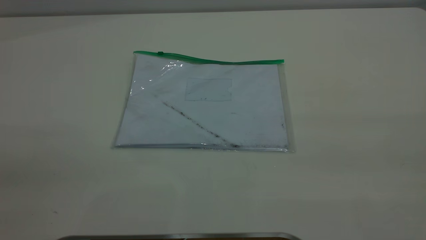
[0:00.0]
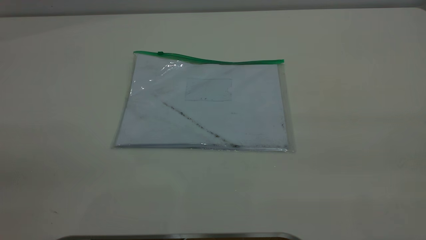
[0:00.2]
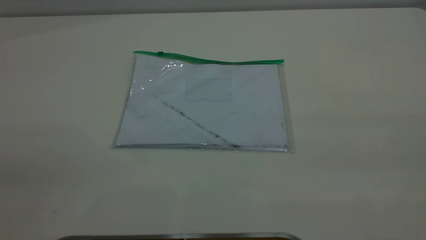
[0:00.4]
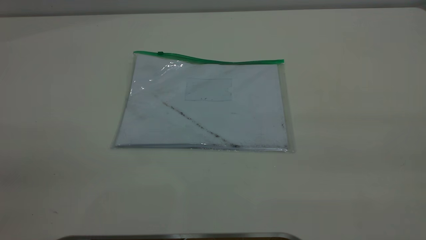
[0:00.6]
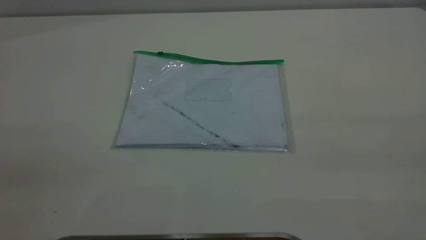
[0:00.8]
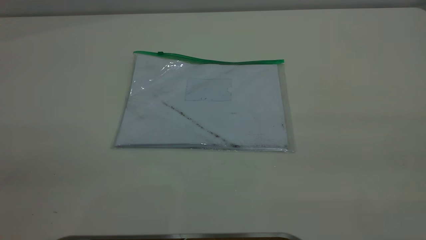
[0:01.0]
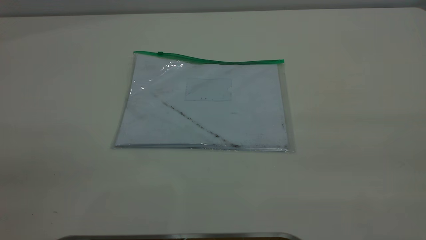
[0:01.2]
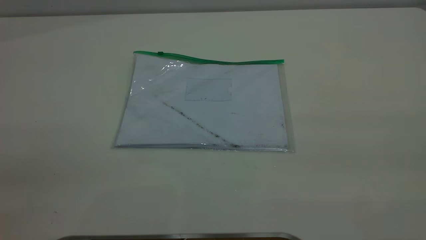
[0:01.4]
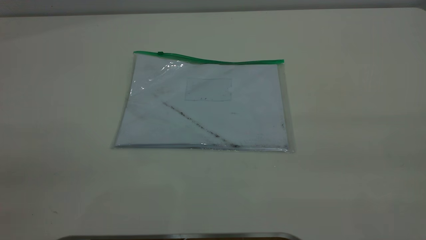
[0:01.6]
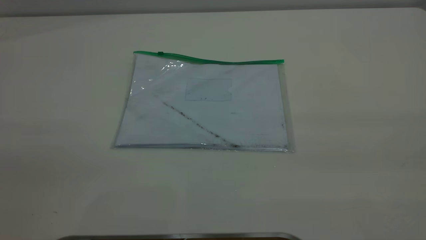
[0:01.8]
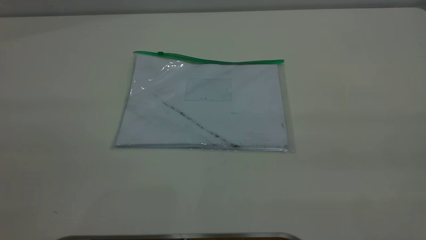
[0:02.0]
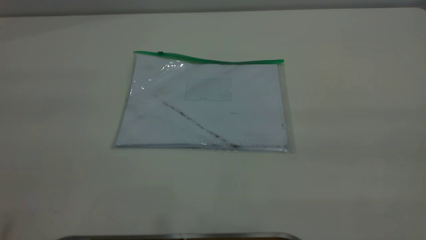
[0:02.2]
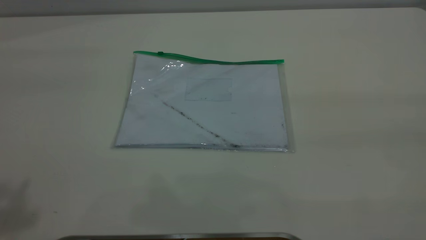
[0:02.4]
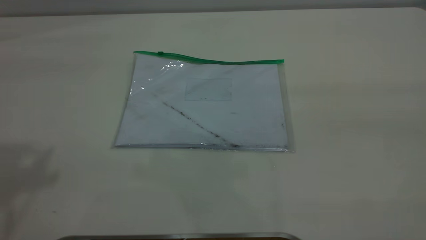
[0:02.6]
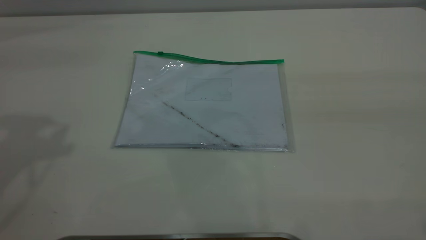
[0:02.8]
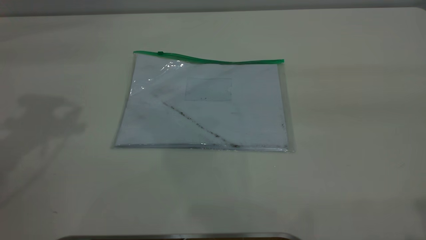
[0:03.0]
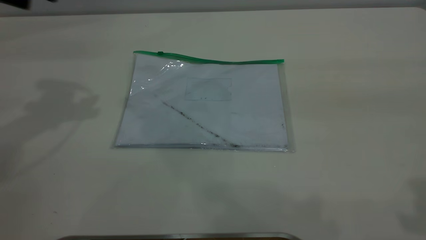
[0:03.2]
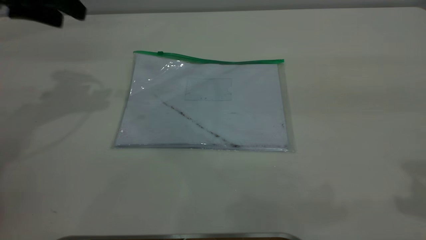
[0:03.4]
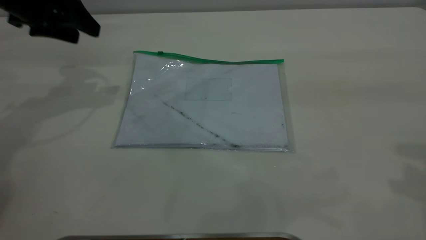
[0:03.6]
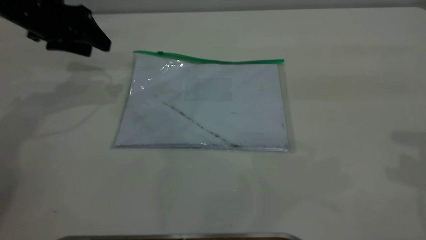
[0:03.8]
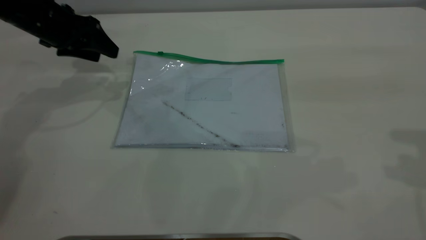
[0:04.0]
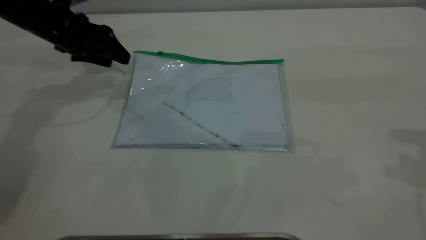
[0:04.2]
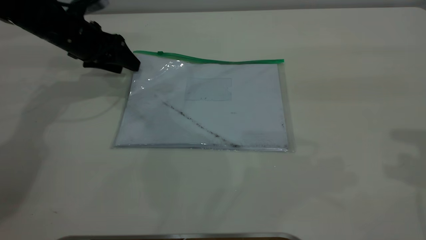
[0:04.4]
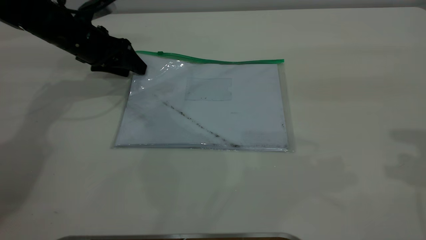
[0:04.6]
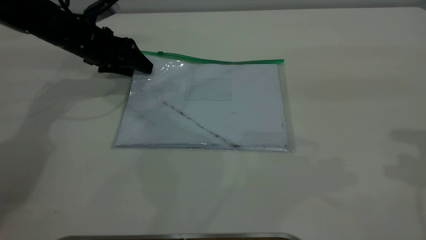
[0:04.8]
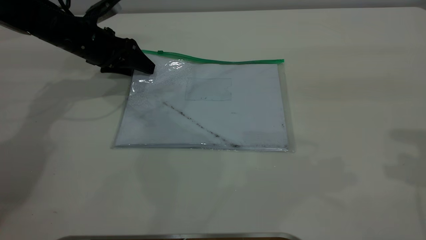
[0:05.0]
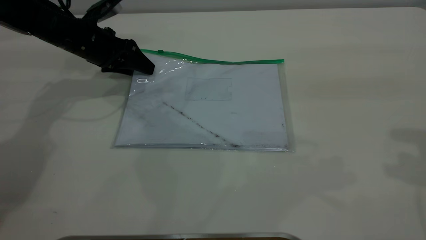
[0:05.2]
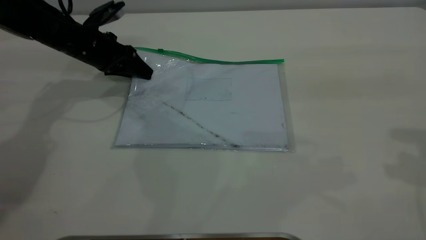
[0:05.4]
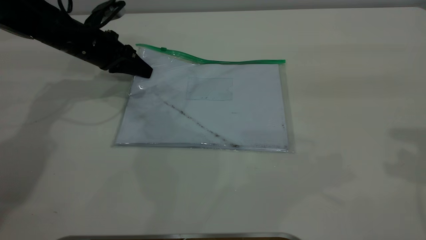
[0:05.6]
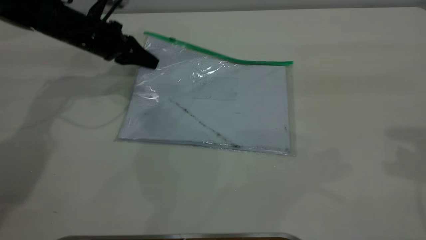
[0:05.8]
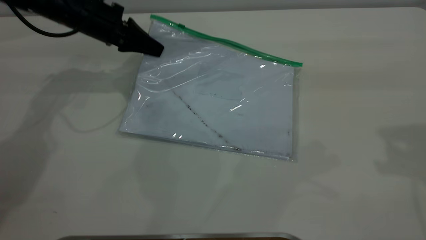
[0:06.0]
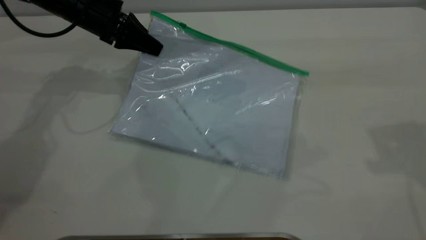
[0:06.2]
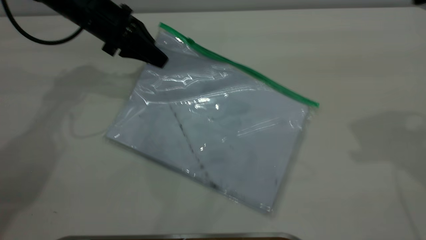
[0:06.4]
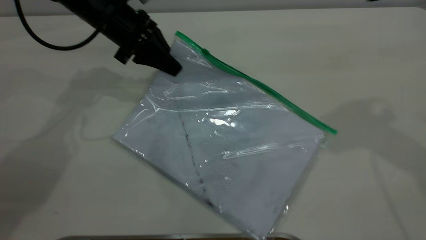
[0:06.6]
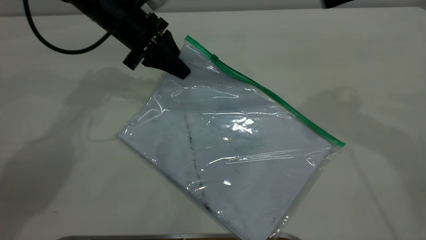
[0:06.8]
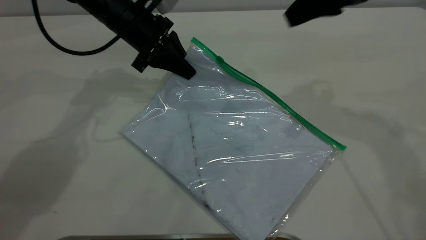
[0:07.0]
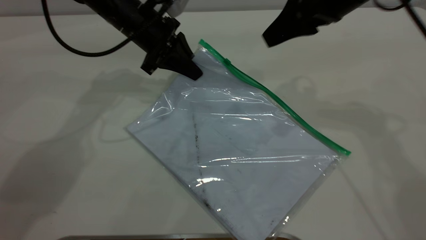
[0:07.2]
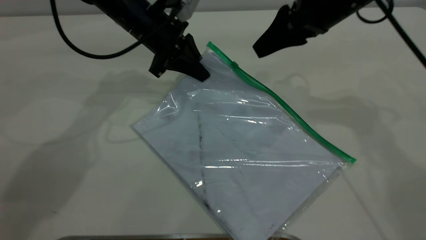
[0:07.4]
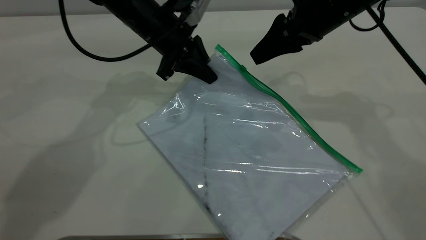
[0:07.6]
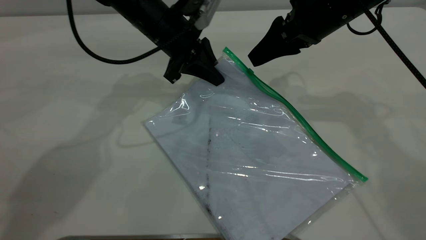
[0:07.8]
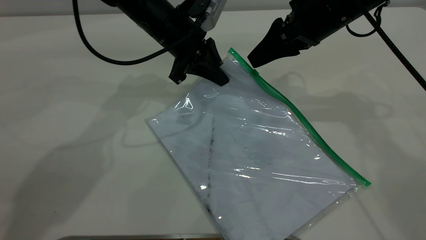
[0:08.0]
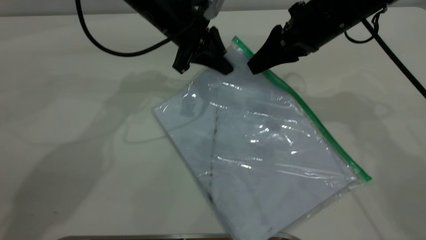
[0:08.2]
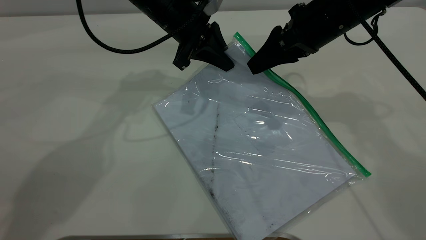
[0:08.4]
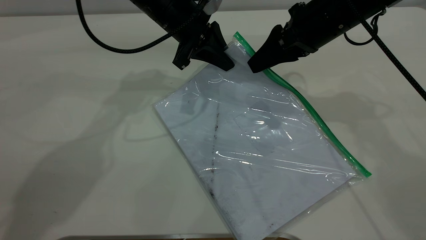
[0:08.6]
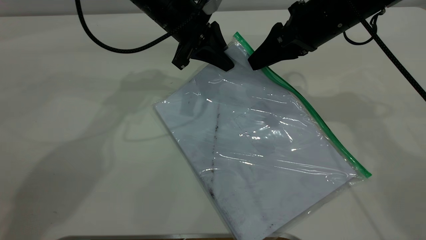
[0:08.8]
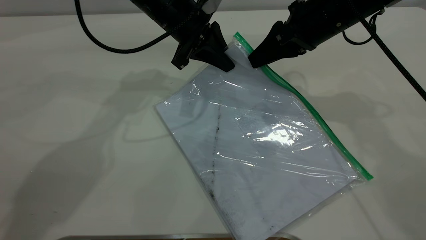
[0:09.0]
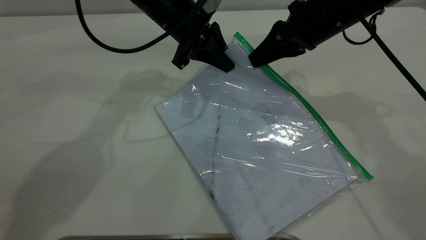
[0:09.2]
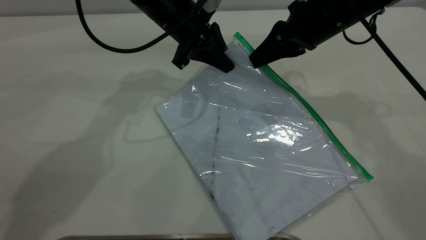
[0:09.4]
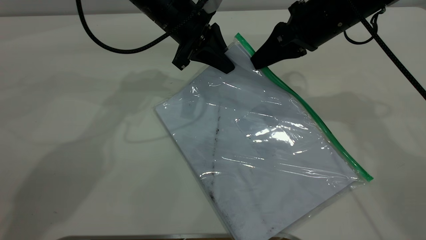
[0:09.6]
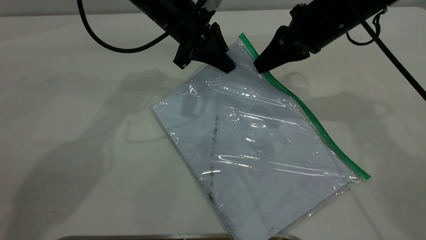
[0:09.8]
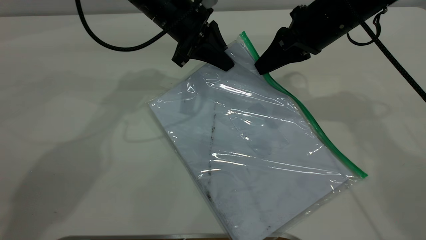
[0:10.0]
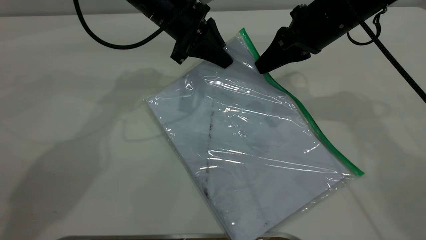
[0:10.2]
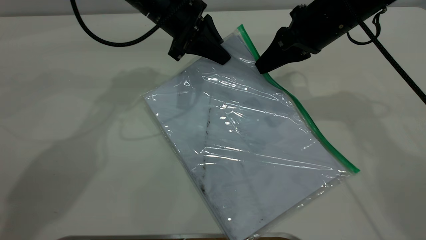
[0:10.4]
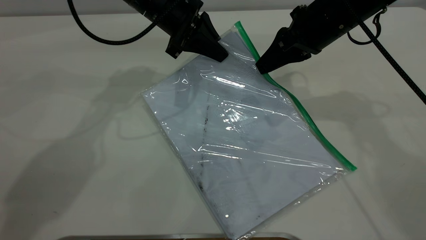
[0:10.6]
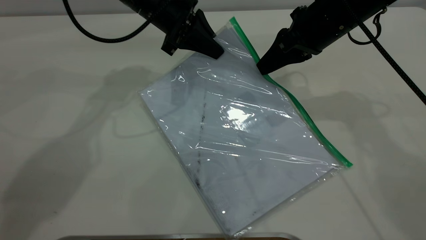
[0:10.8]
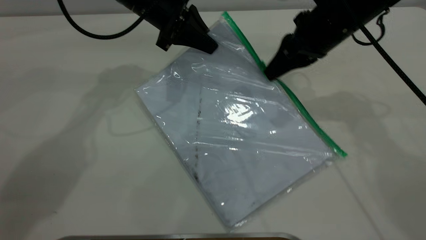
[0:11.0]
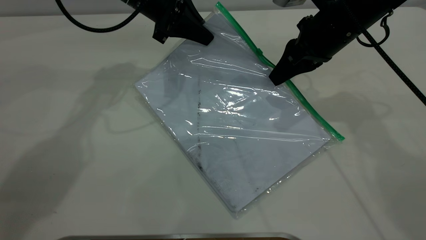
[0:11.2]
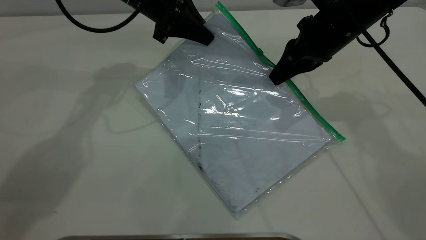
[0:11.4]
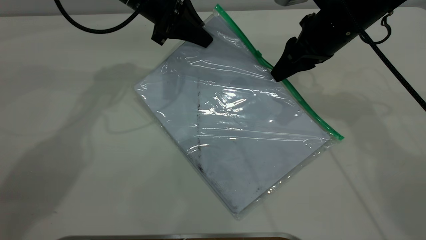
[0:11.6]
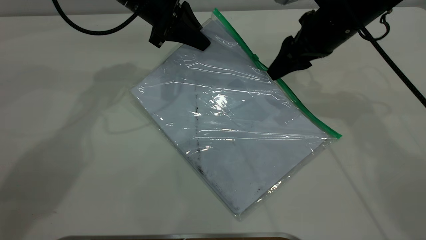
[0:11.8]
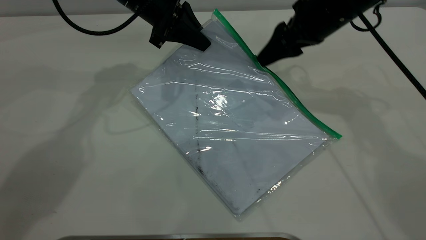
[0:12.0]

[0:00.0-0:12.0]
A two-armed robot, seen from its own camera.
Step, 0:00.0 to 0:03.6: Pick up the transparent plastic bag with the left gripper.
0:00.0 to 0:01.6: Neither gripper changes place.
0:03.0 to 0:04.4: The left gripper is displaced downward and forward by approximately 25 cm.
0:04.4 to 0:06.0: The left gripper closes its fingers.
0:06.0 to 0:07.6: The right gripper moves to the left, forward and downward, about 25 cm; the left gripper travels to the right by about 10 cm.
0:07.6 to 0:09.0: The right gripper closes its fingers.
0:09.0 to 0:10.4: The grippers make only small movements.
0:10.4 to 0:12.0: The right gripper opens up.

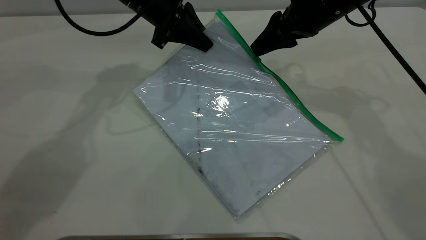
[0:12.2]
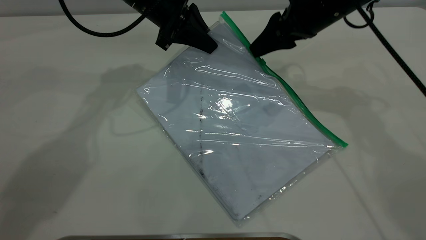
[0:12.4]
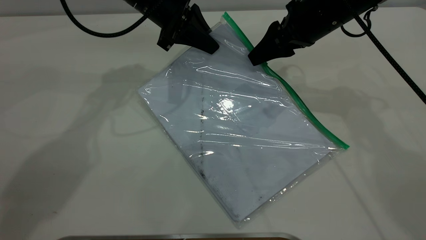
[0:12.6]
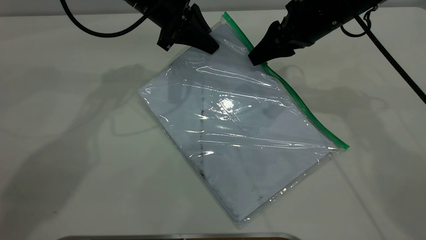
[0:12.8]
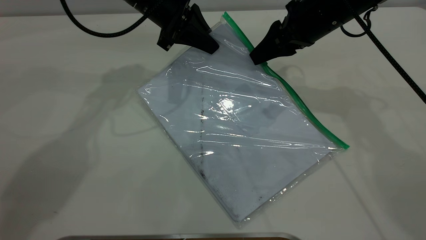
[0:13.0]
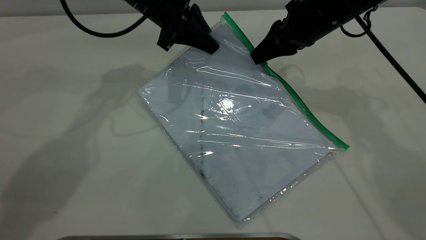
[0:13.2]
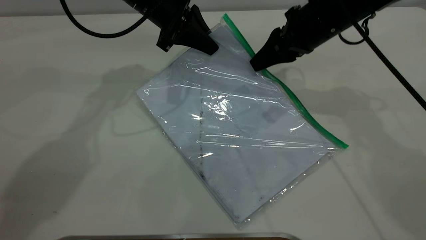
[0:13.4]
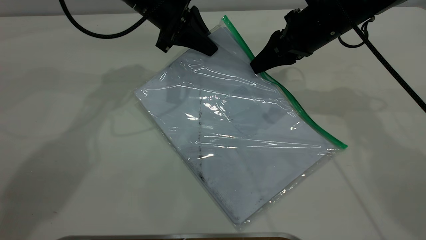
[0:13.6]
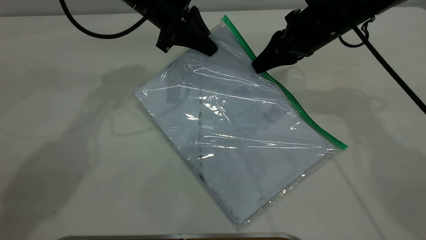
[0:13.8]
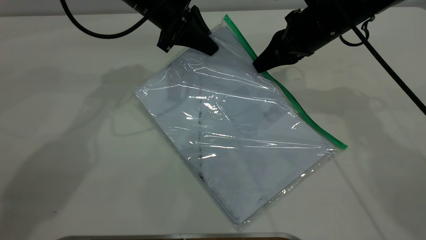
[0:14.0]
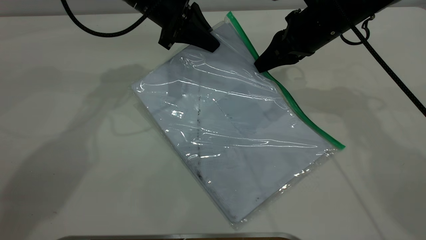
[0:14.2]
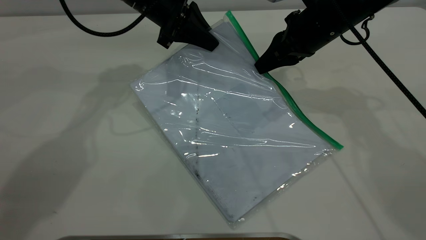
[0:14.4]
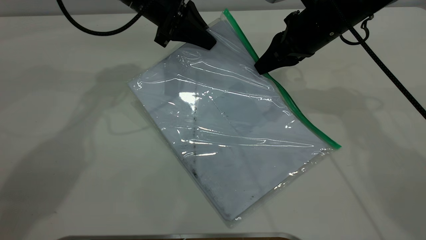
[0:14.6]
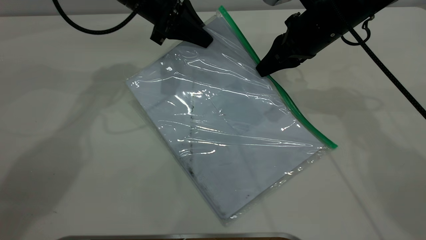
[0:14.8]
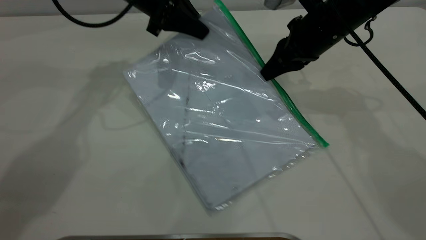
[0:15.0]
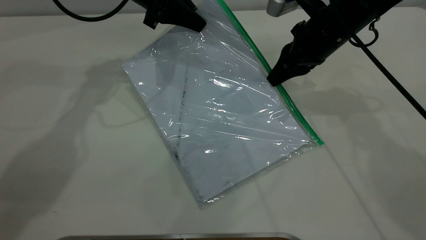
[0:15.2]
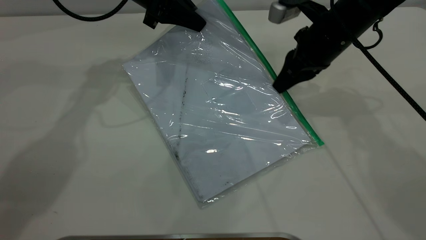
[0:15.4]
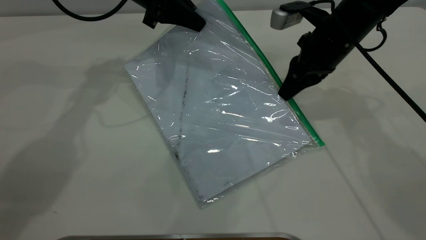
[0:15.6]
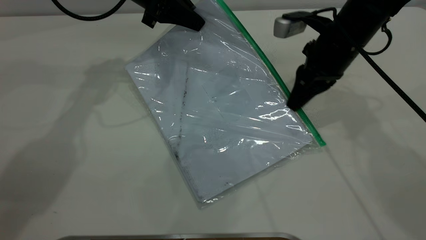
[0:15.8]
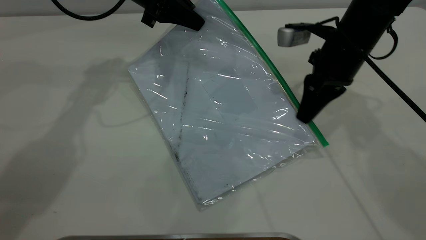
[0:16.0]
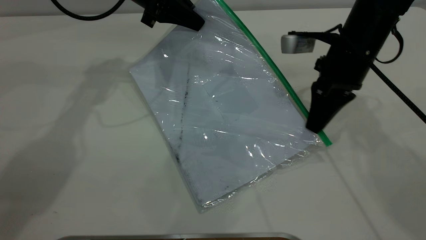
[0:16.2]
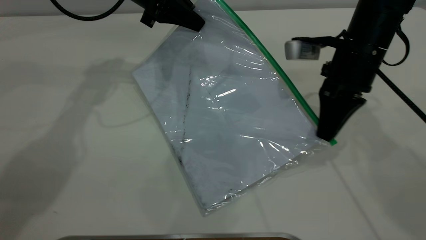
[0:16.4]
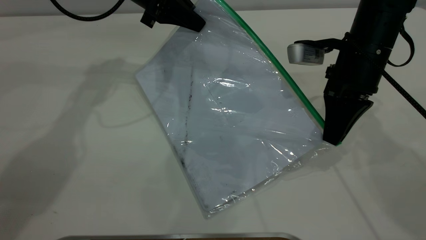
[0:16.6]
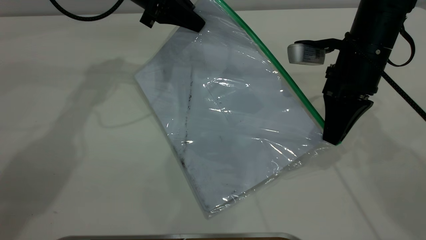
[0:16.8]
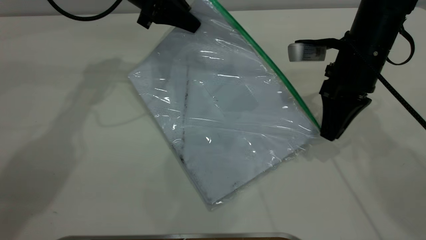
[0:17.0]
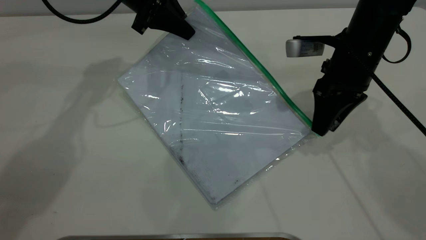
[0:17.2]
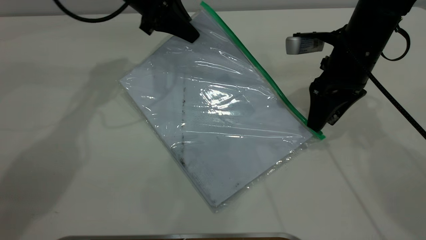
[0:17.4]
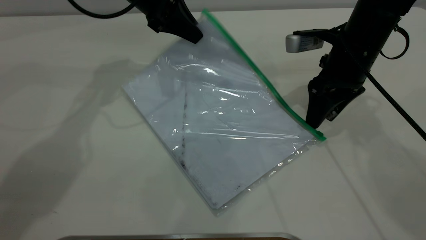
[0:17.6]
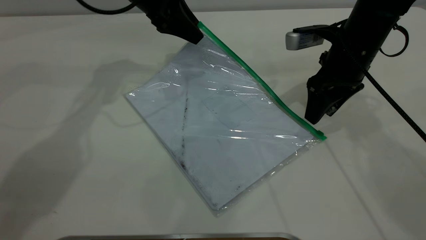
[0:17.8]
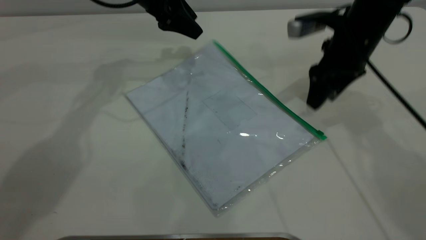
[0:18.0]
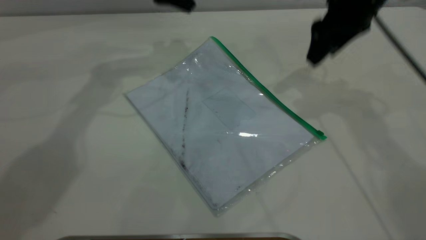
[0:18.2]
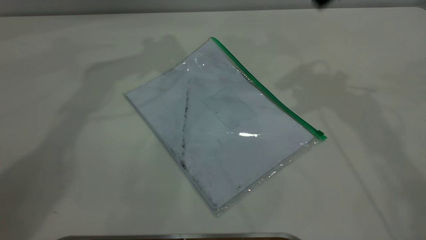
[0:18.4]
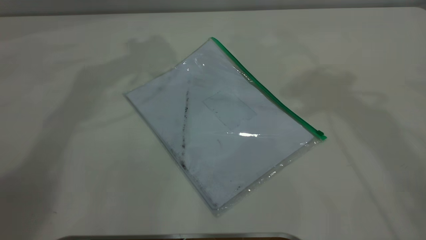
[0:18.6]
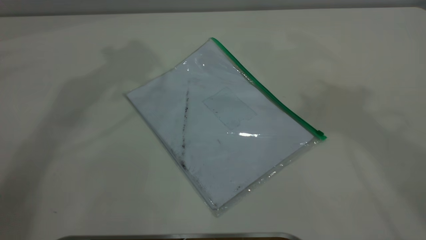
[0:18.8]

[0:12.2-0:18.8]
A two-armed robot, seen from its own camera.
Step, 0:12.2 to 0:17.4: Pulling up the zipper on the transparent plastic bag with the right gripper to close it.
Step, 0:17.6 to 0:18.0: Place the transparent plastic bag.
0:12.2 to 0:13.8: The right gripper closes its fingers.
0:13.8 to 0:15.4: The grippers stay close to where they were, moving slightly.
0:15.4 to 0:17.2: The right gripper opens.
0:17.2 to 0:18.8: Both grippers move upward, approximately 35 cm. The left gripper opens up.
